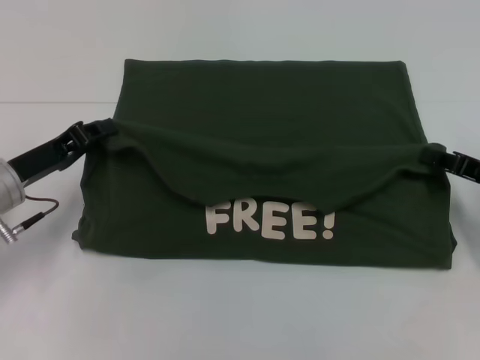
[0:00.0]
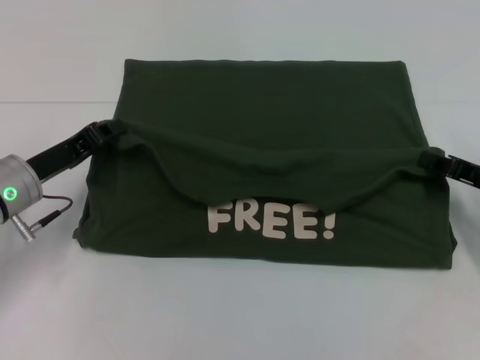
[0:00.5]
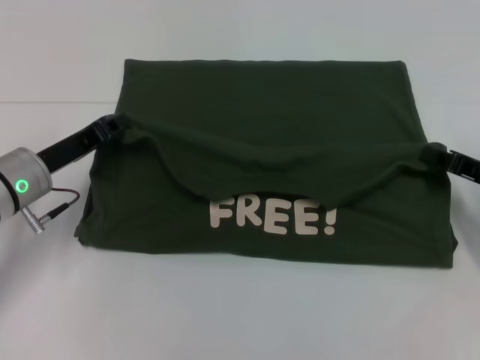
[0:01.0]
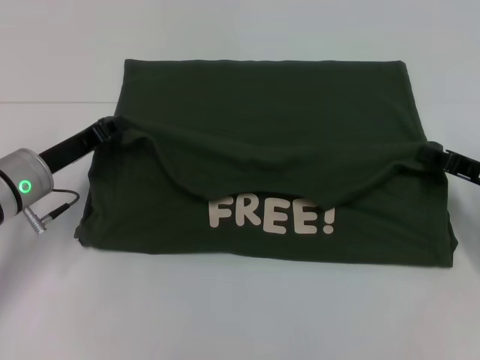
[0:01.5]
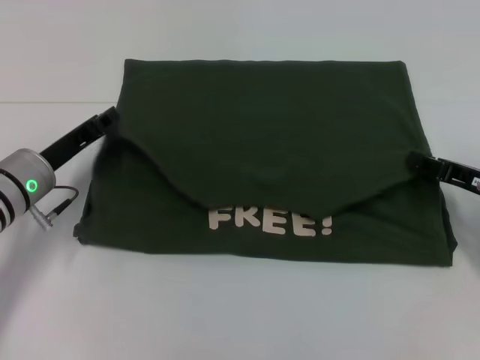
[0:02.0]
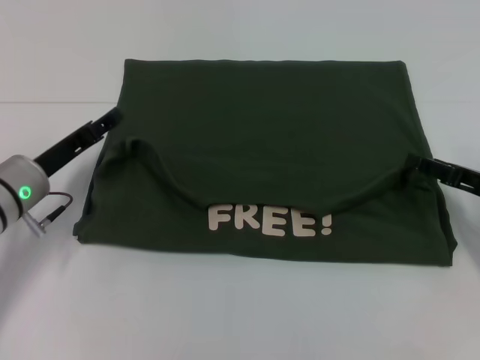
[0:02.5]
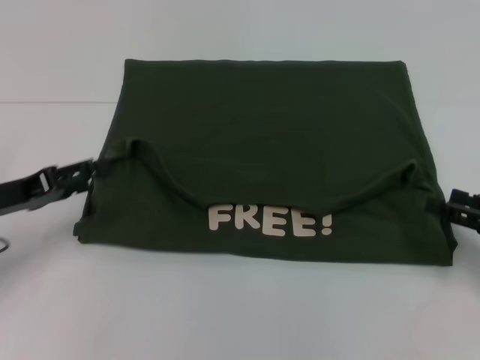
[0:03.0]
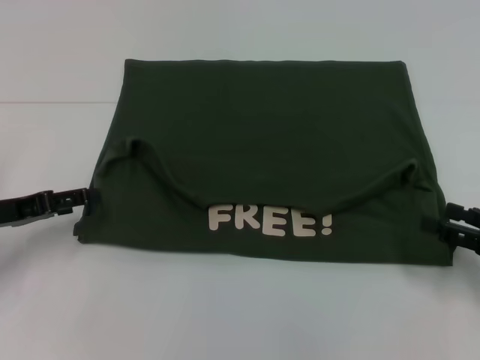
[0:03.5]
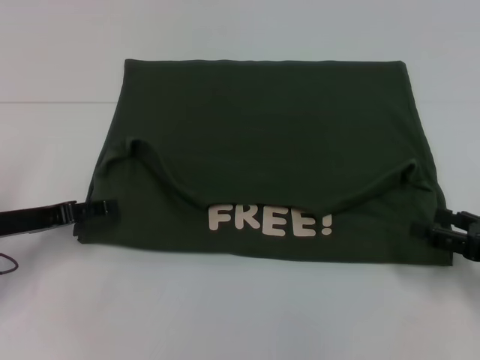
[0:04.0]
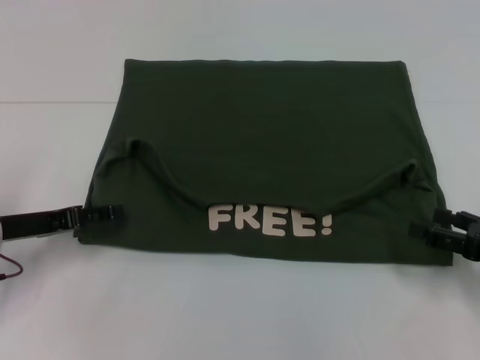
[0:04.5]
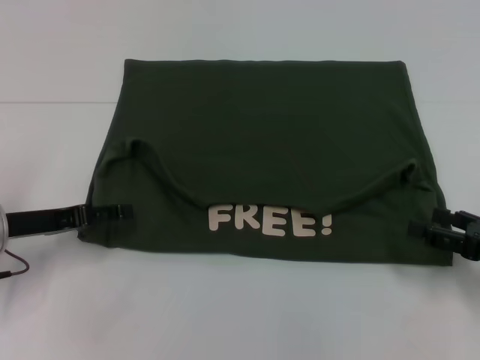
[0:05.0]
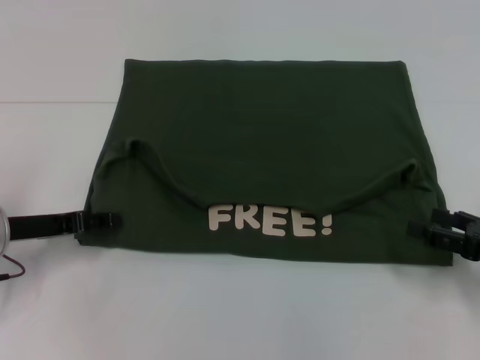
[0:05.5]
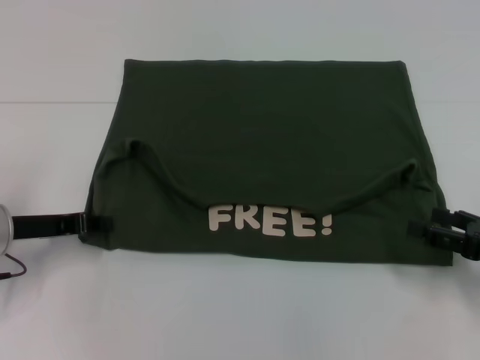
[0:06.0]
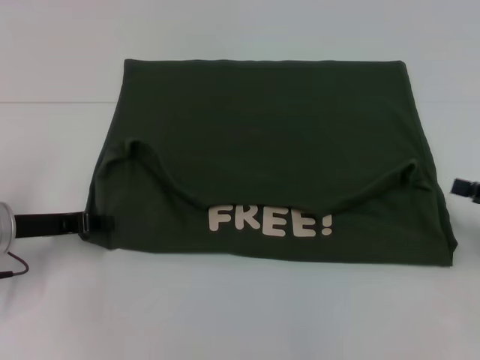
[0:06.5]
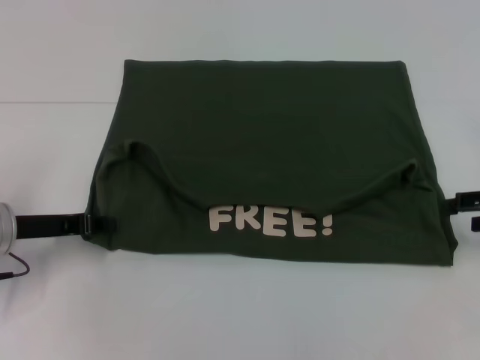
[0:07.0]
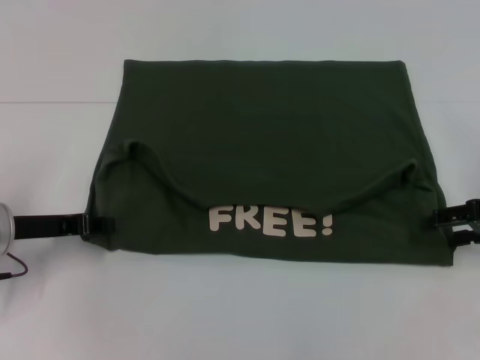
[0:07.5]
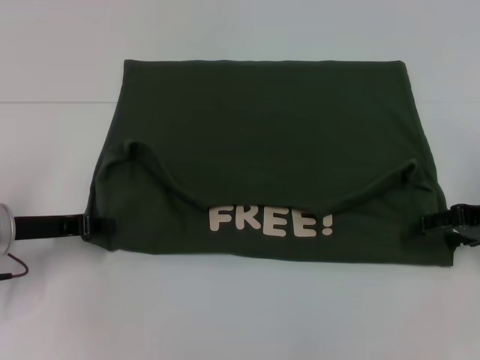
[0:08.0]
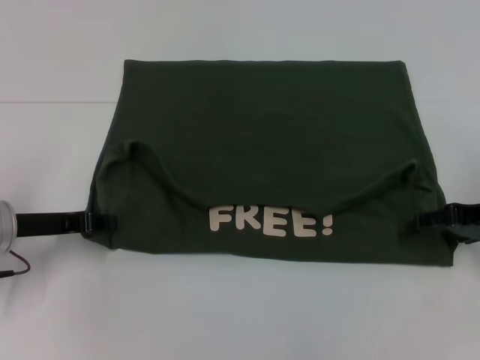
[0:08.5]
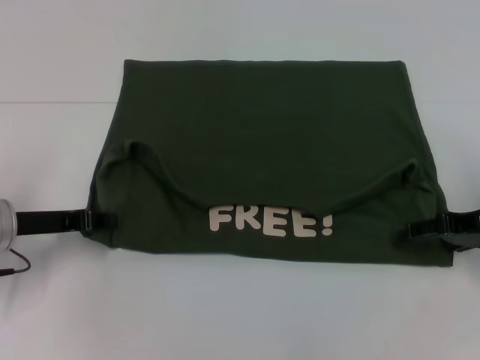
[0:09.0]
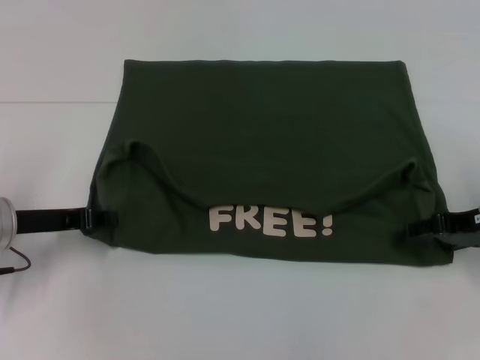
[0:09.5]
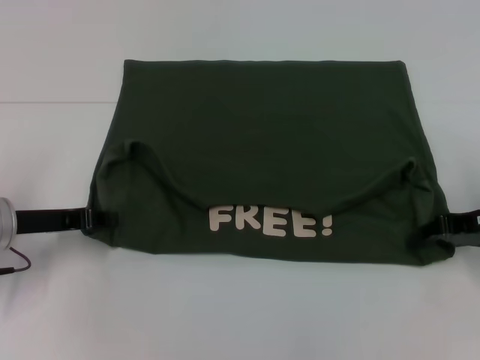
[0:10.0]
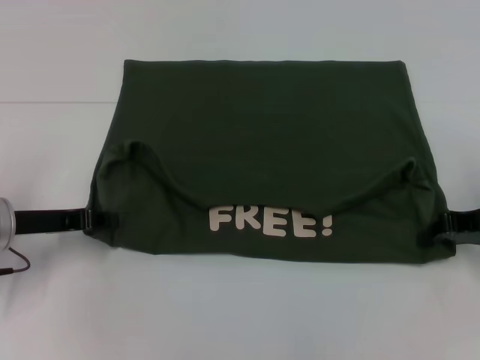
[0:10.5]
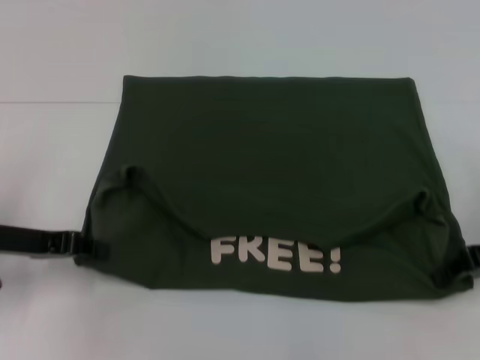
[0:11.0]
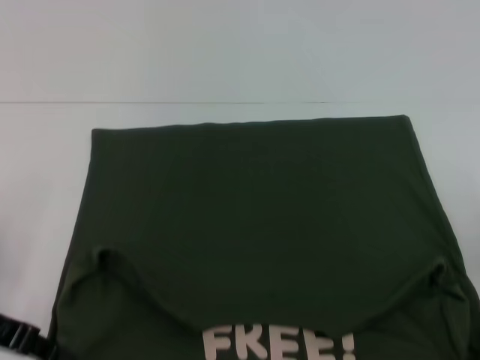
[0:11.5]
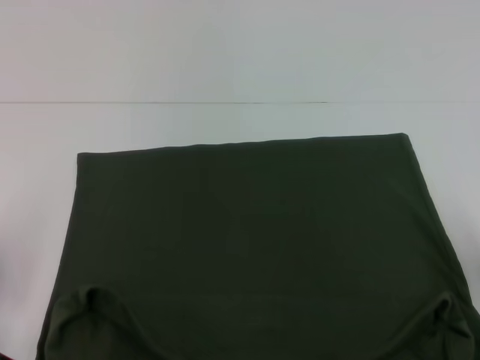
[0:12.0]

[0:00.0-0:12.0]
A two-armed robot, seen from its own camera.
Step, 0:00.0 to 0:02.5: Fold the clothes with your left hand.
Step, 0:00.0 to 0:02.5: Fold the clothes with your right hand.
Step, 0:03.0 to 0:12.0: Pull the clothes with your left hand.
Step, 0:03.0 to 0:12.0: Pull the clothes with your right hand.
0:00.0 to 0:02.0: There are only small adjustments of the grippers.
0:02.0 to 0:04.0: The right gripper is displaced backward by some 10 cm, and opens, while the left gripper goes approximately 5 cm to the left, and opens up.
0:04.0 to 0:06.0: The left gripper closes its fingers.
0:06.0 to 0:08.0: The right gripper travels forward and upward by roughly 10 cm.
0:08.0 to 0:10.0: The grippers stay close to where they were, moving slightly.
0:10.0 to 0:12.0: Both grippers move backward, some 5 cm. The right gripper closes up.

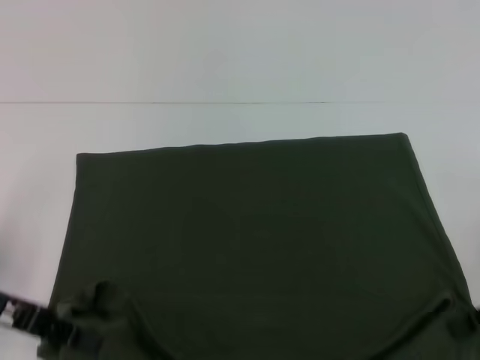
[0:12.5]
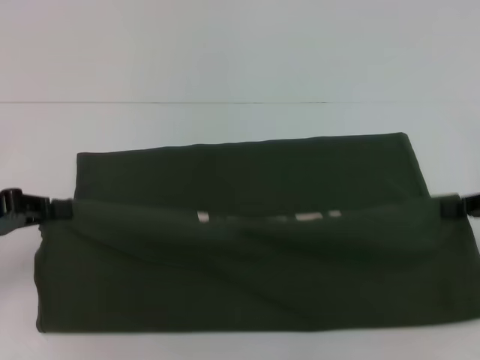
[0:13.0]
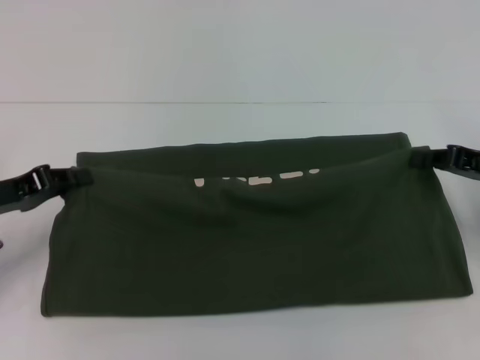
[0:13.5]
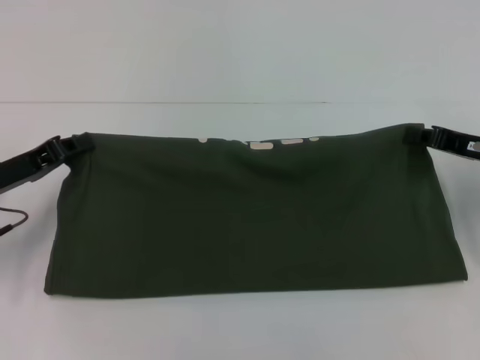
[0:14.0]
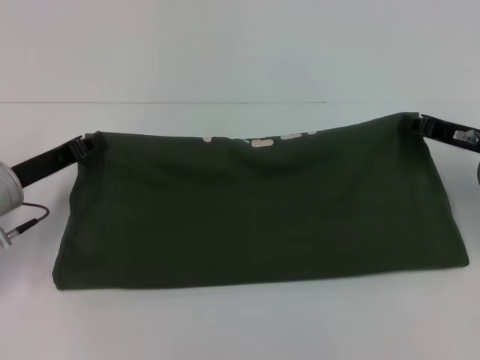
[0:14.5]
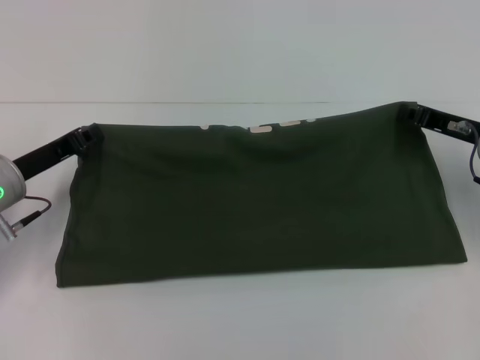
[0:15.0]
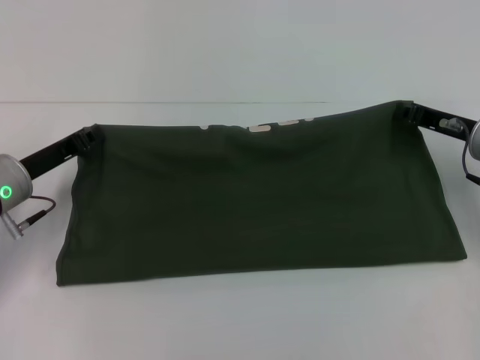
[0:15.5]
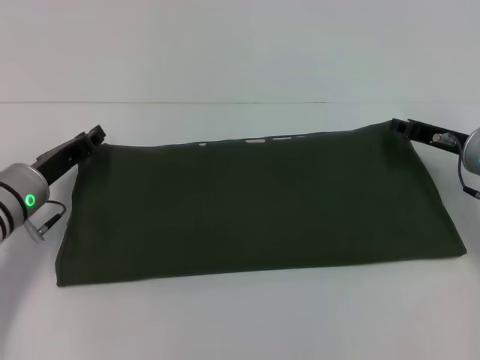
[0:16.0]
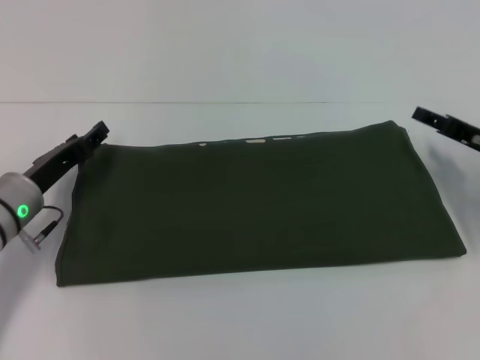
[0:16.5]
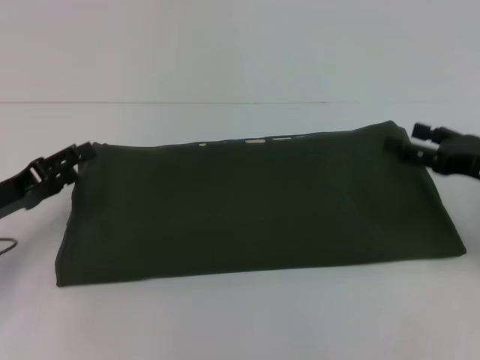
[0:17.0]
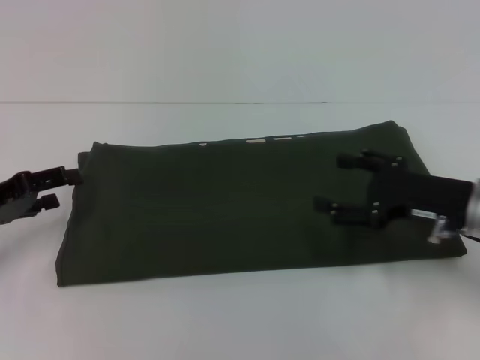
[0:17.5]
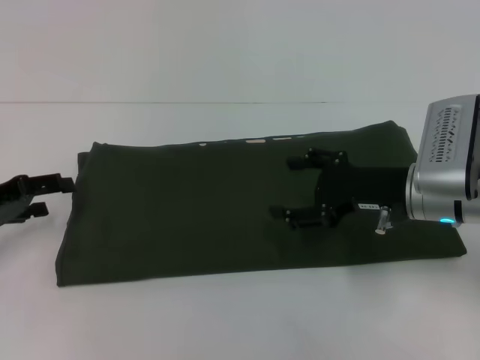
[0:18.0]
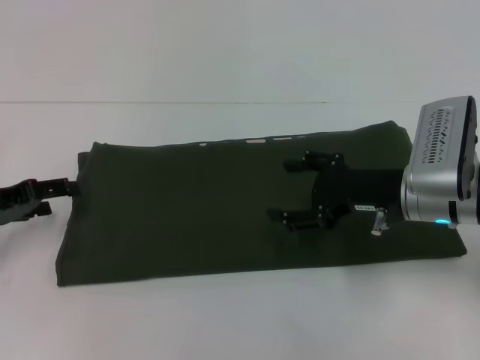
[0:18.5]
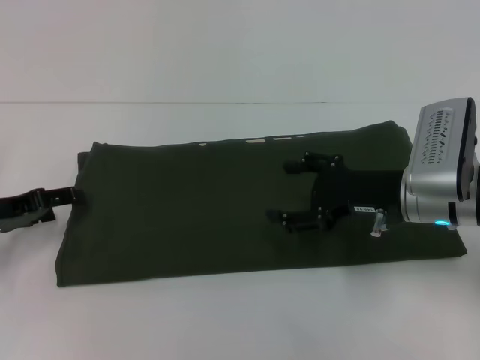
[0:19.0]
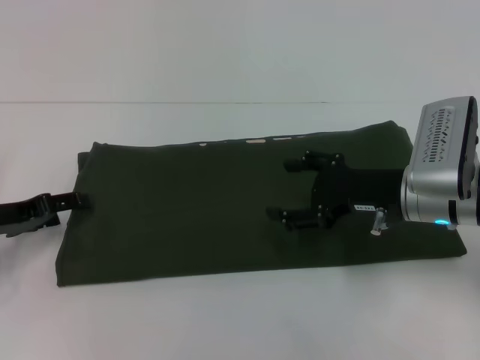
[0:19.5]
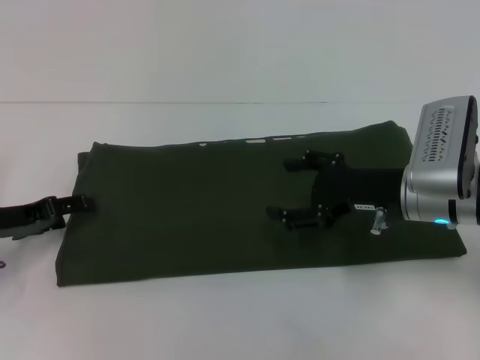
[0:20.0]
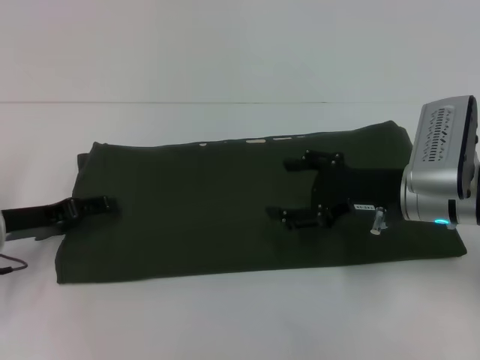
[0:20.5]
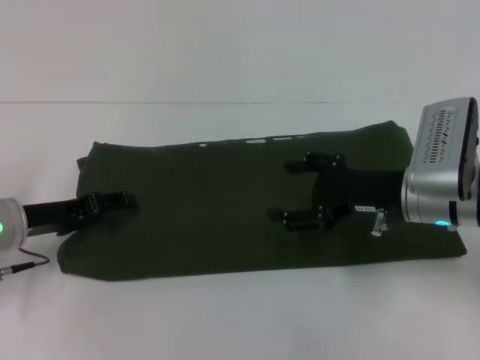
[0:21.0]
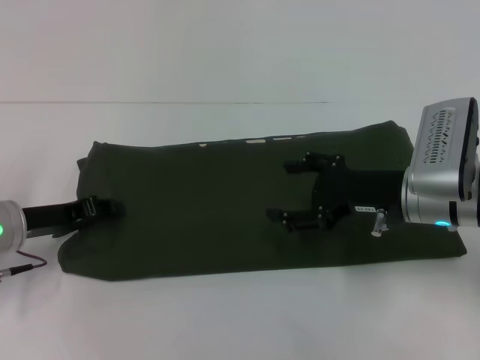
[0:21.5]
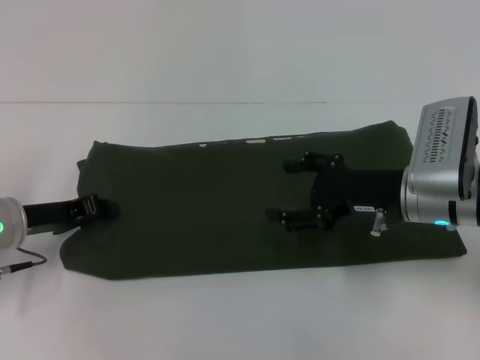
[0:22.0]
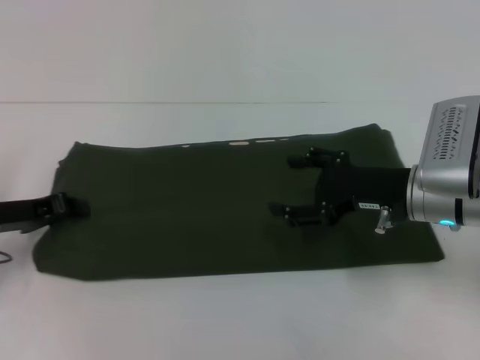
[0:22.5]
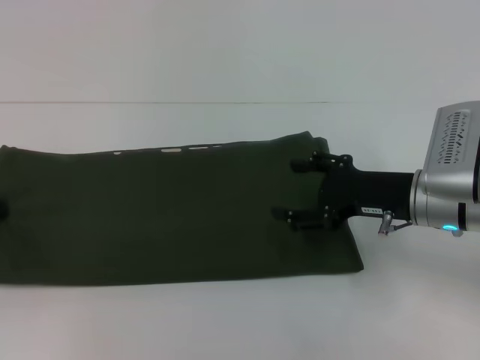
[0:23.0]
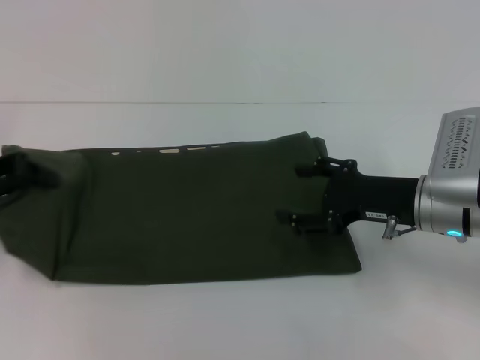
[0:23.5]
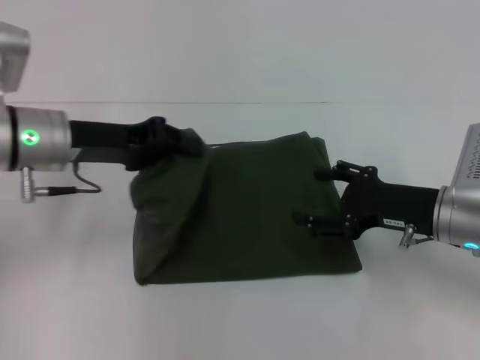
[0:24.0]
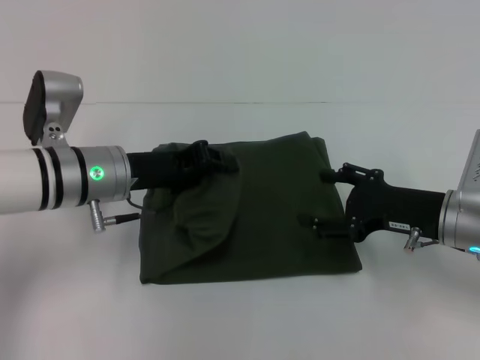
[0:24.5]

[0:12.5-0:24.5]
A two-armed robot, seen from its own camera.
Step, 0:12.5 to 0:16.0: Fold the clothes with your right hand.
0:12.5 to 0:14.5: The left gripper is displaced forward and downward by some 10 cm. Meanwhile the right gripper heads forward, covering about 10 cm.
0:14.5 to 0:16.5: The left gripper opens its fingers, while the right gripper opens its fingers.
0:16.5 to 0:18.5: The two grippers go roughly 10 cm to the left. The left gripper opens.
0:18.5 to 0:20.5: There are only small adjustments of the grippers.
0:20.5 to 0:22.5: The left gripper closes up.
0:22.5 to 0:24.5: The left gripper heads to the right, covering some 15 cm.

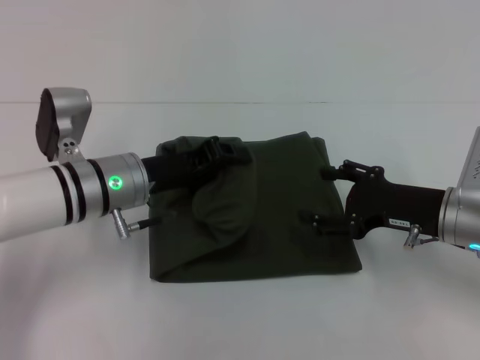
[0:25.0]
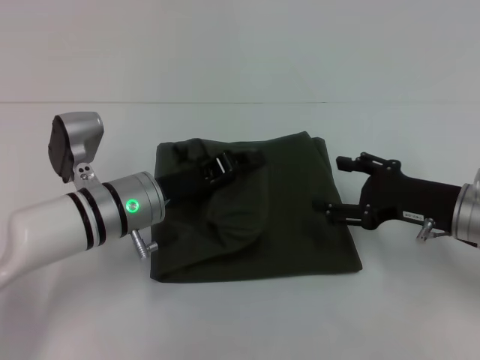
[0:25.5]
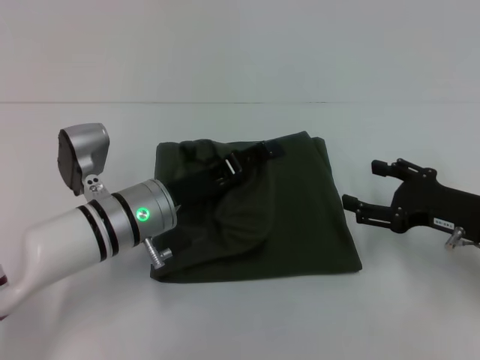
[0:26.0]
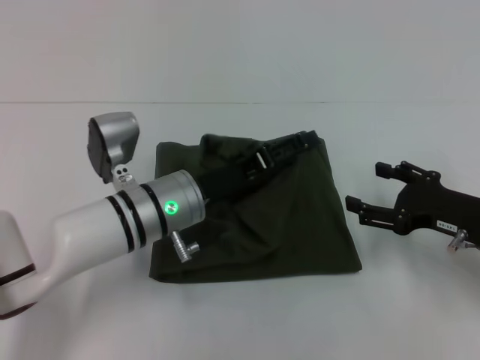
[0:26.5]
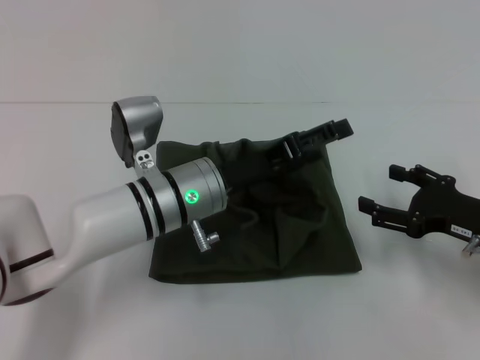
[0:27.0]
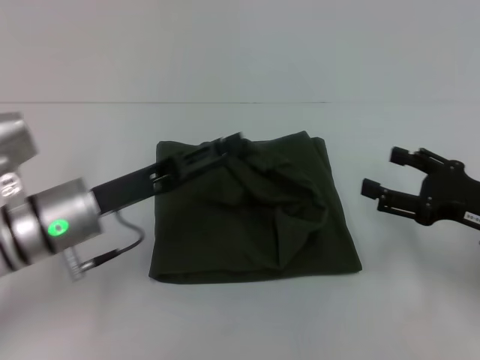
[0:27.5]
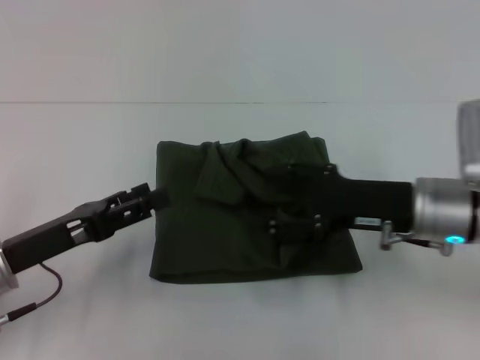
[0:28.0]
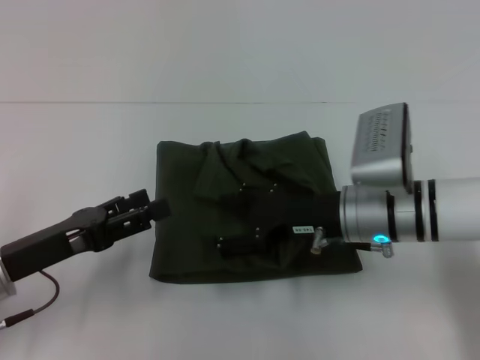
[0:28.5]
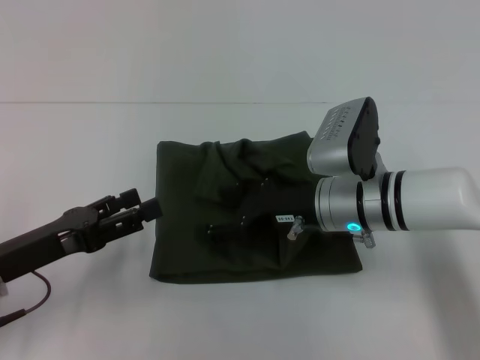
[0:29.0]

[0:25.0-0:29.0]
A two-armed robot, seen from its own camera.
Step, 0:25.0 to 0:27.0: Fold the clothes with your left hand.
0:25.0 to 0:27.0: Both grippers travel together to the right, approximately 5 cm. The left gripper opens.
0:27.0 to 0:29.0: The right gripper shifts some 15 cm to the left; the left gripper moves to the left and backward, roughly 20 cm.
